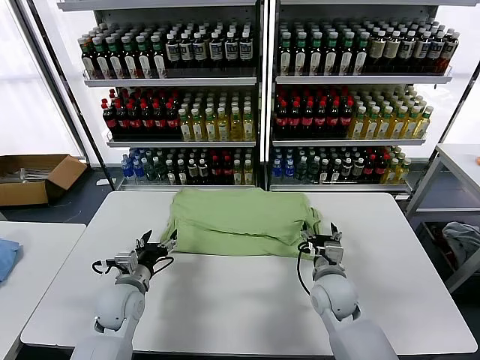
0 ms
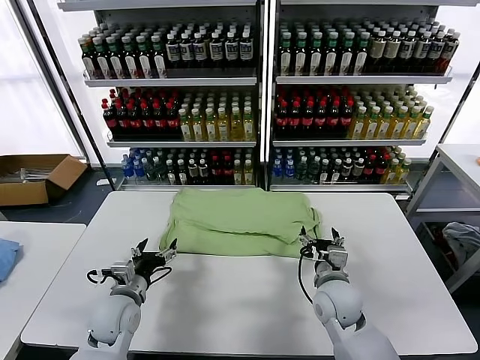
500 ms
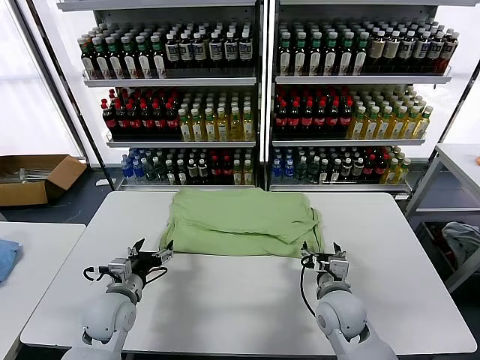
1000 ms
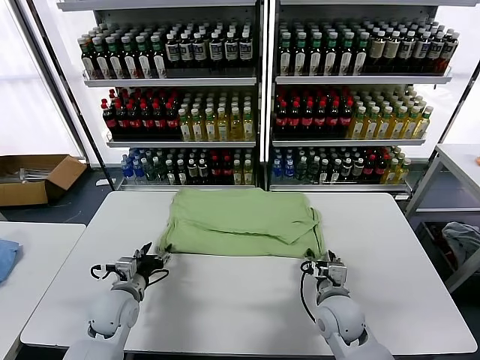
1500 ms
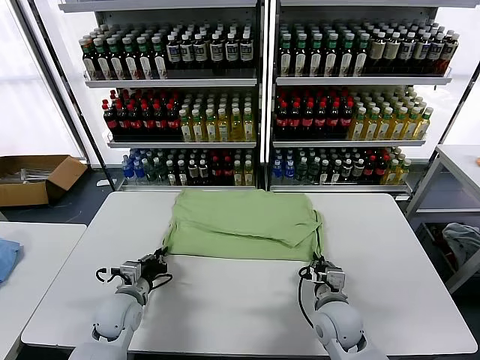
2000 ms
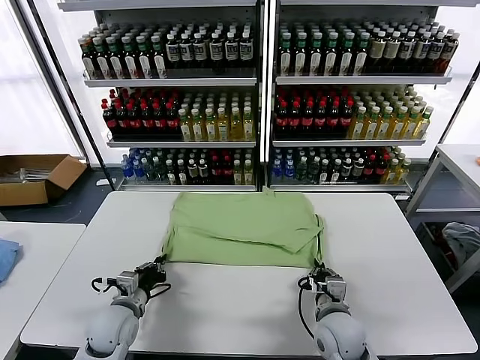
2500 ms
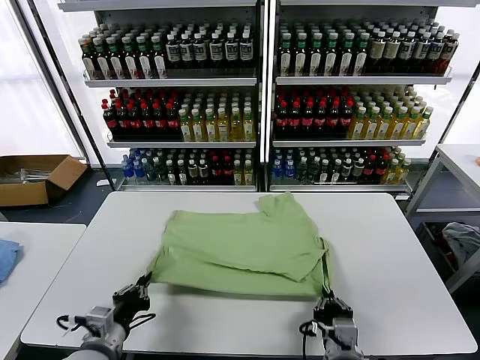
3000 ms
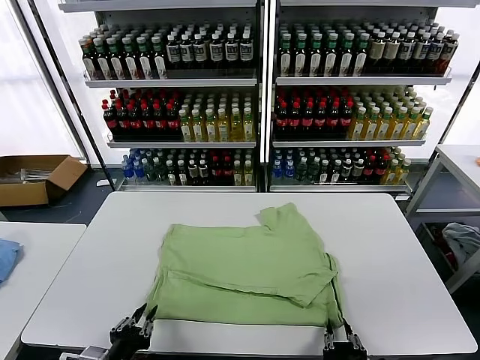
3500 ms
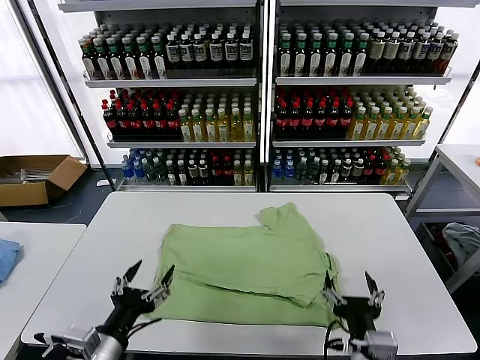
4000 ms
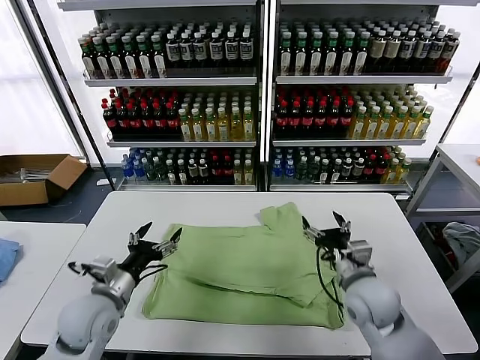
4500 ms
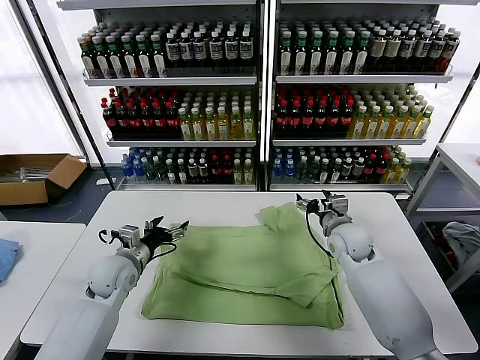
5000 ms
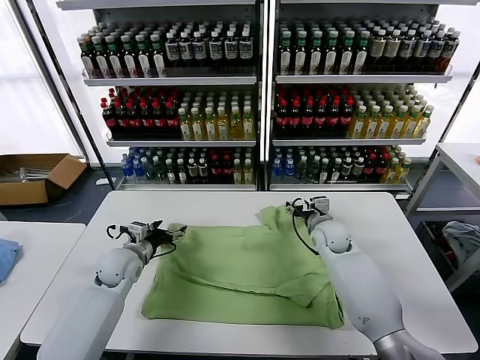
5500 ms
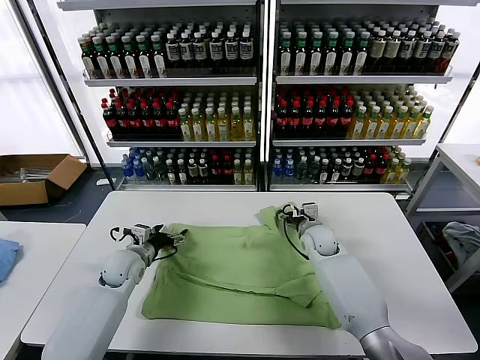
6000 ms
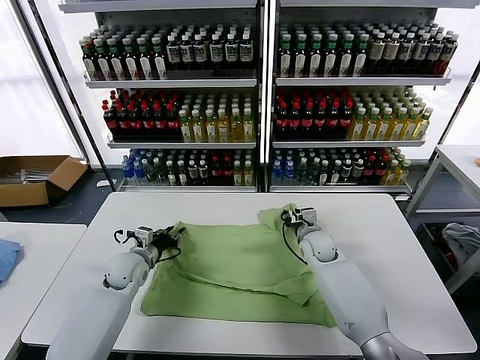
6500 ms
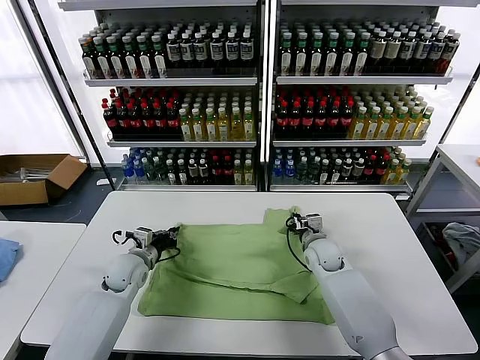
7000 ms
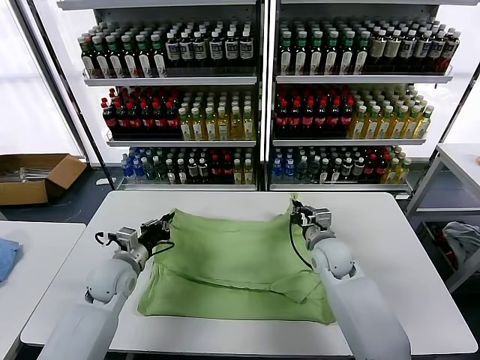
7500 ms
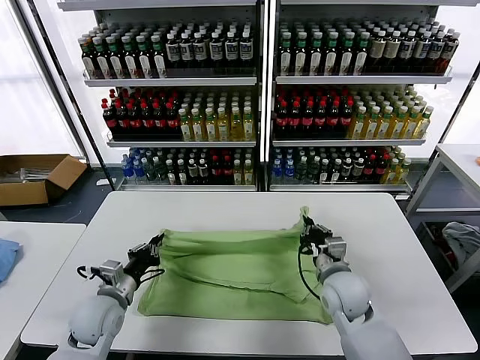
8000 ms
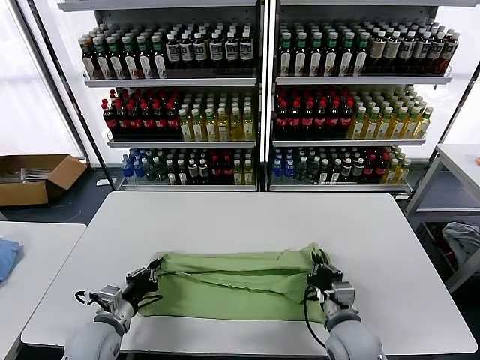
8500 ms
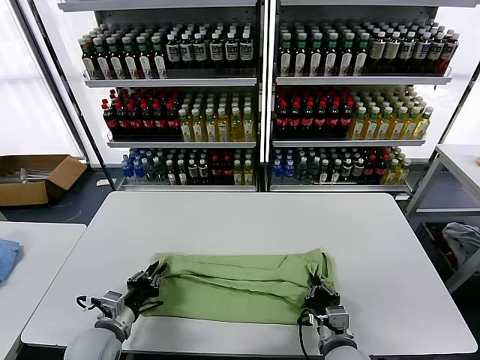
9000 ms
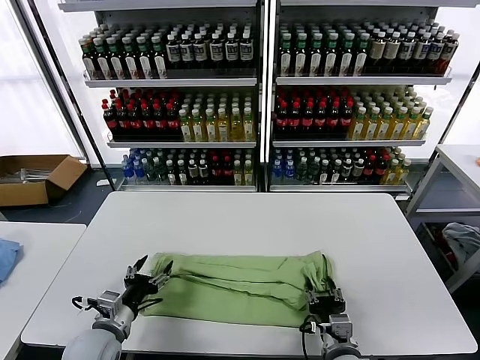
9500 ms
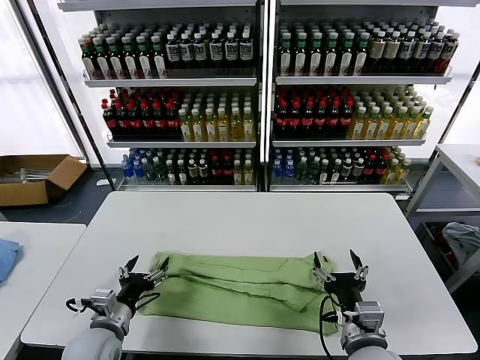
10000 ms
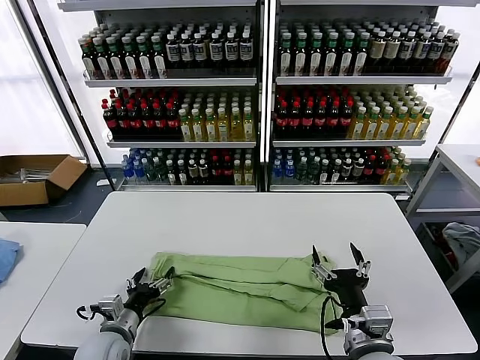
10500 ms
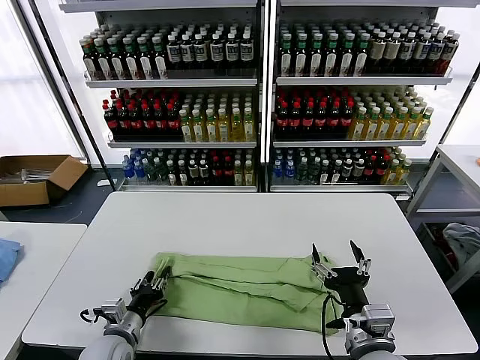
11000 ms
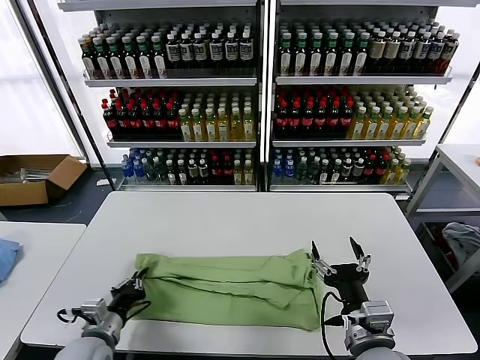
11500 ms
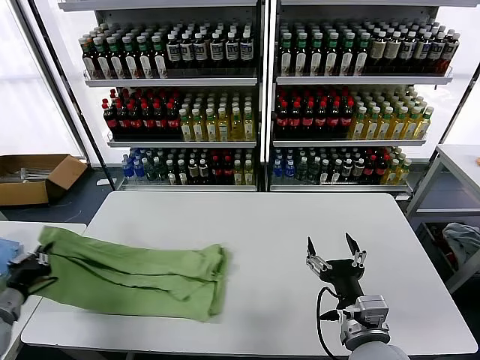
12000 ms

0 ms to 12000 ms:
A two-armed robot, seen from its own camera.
Task of the whole recording: fold and organize the clothes.
Step, 0 ms to 3500 ms: Drag the clothes downward with both gripper.
Step, 4000 ms to 6500 ms: use both grippers simultaneously to clamp the upper edge of the clothing fabric.
Step, 7000 ms to 9500 ms: use both grippers to drag the upper edge of the fabric backward and fold it over the lower edge.
Step, 10000 ms to 11000 ms: use the left gripper to clamp the left edge of the fabric.
0 ms to 2000 ms: The left gripper closes its fingers, while the right gripper closes up.
2000 ms to 4000 ms: The two grippers go approximately 20 cm backward and upward. The left gripper opens its fingers; the right gripper opens its fingers.
4000 ms to 6000 ms: Both grippers move forward, approximately 35 cm.
6000 ms to 8000 ms: Both grippers move backward, approximately 15 cm. The left gripper closes up. The right gripper closes up.
8000 ms to 10000 ms: The left gripper is displaced backward by roughly 5 cm, and opens its fingers, while the right gripper moves backward, some 15 cm, and opens its fingers.
10000 ms to 12000 ms: The left gripper travels to the left by roughly 15 cm, and closes.

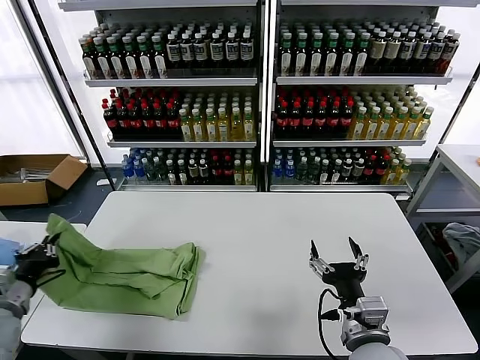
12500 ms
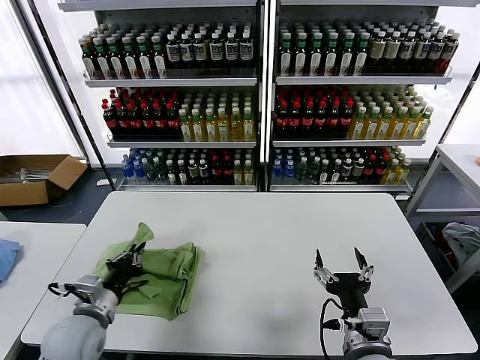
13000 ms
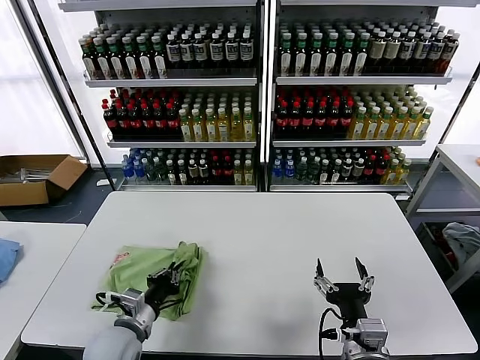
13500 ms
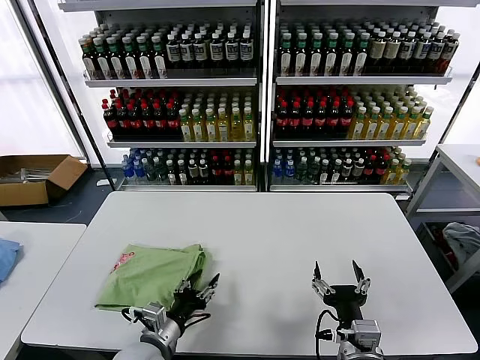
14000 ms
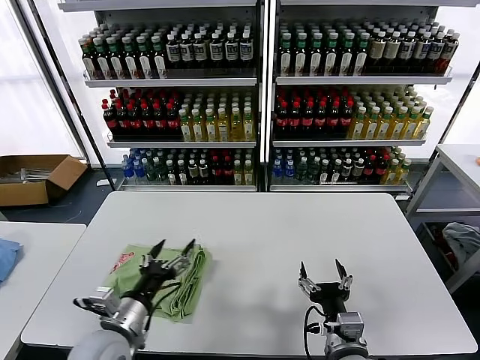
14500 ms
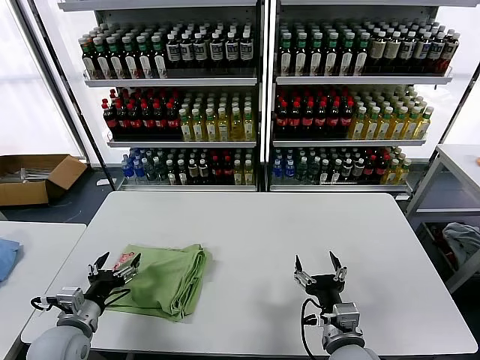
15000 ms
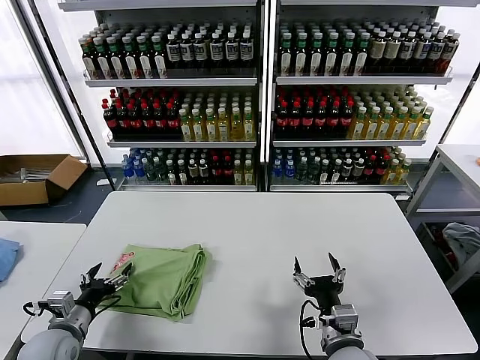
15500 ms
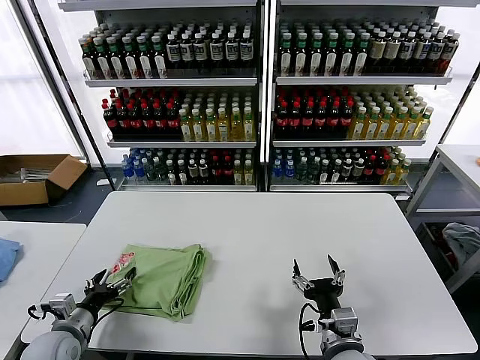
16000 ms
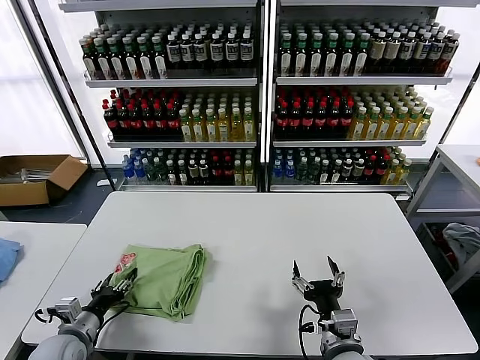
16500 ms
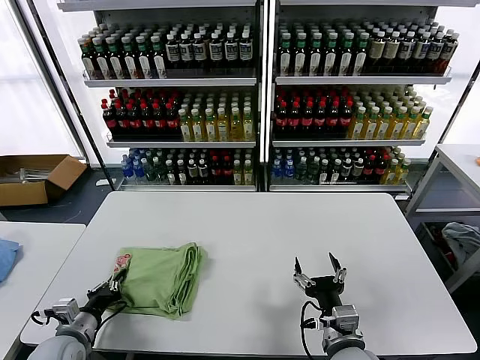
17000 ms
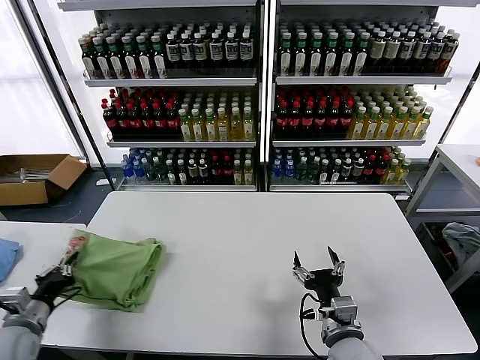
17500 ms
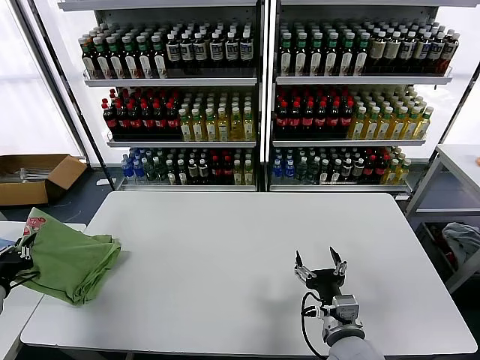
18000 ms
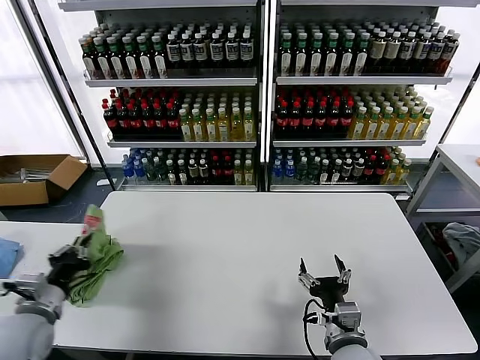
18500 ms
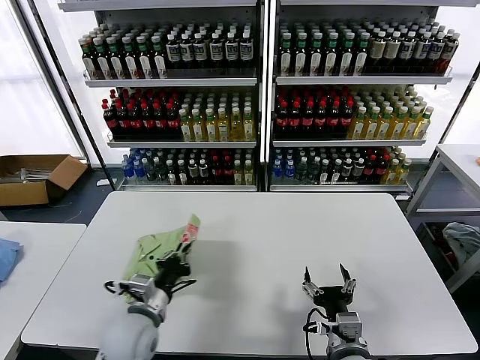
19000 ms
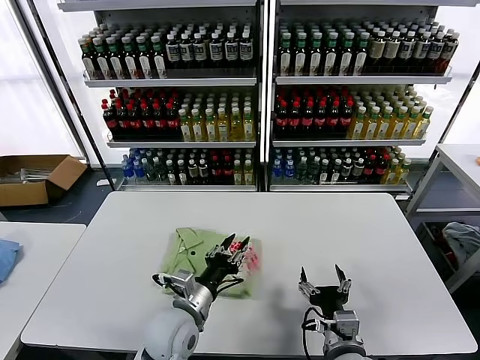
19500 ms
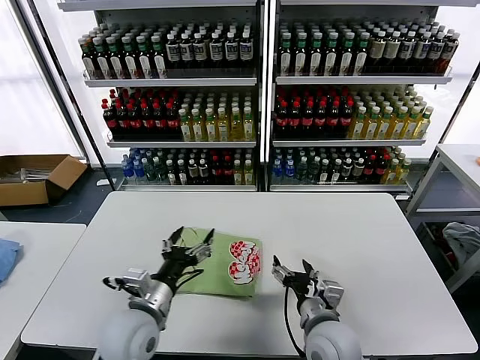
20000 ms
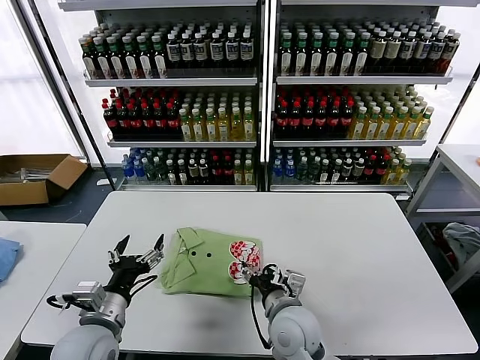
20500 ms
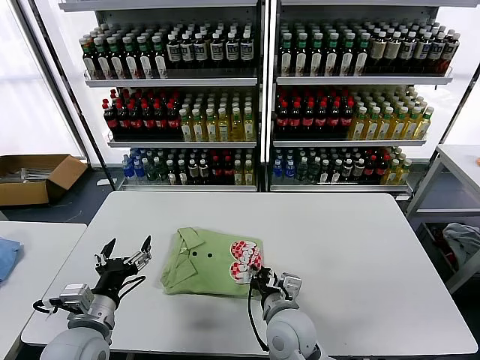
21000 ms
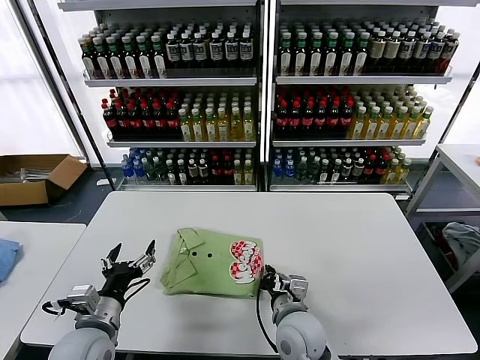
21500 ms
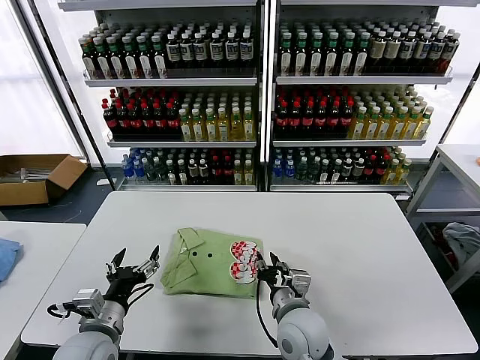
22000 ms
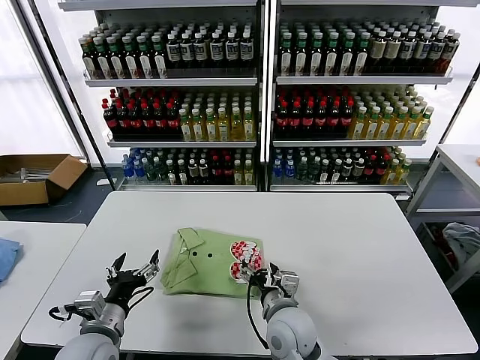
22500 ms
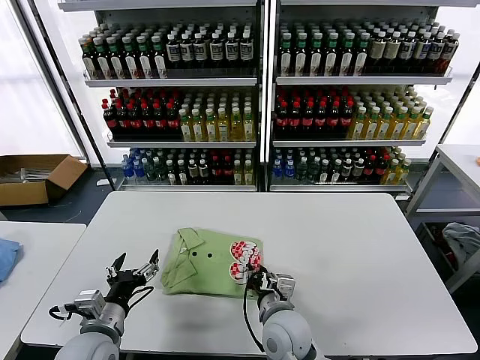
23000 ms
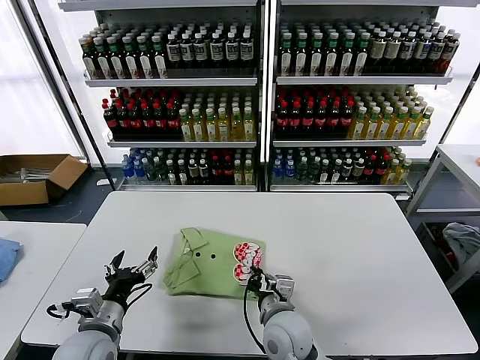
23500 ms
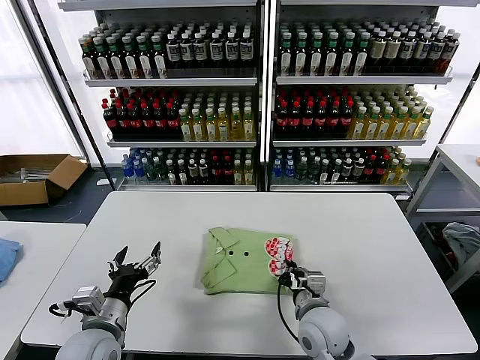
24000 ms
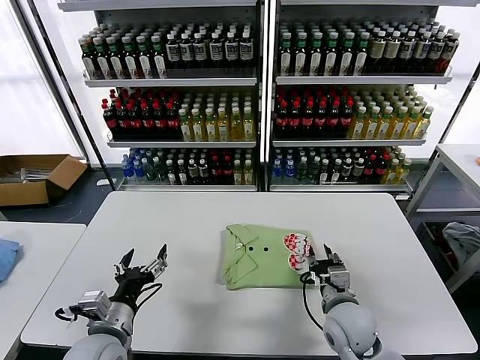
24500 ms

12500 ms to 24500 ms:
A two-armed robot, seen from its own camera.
Task of the whole recording: fold and organize the clothes.
Step, 12500 ms to 14000 ms: use the left gripper to drag the left edge of the fabric to the left and folds it over the right edge.
Step, 14500 ms to 19500 ms: Flip the folded clothes over with left gripper.
12500 ms to 14500 ms: The left gripper heads to the right, covering approximately 25 cm, and opens up. Meanwhile the right gripper goes about 5 cm downward.
14500 ms to 16500 ms: The left gripper shifts about 20 cm to the left and downward.
16500 ms to 18500 ms: The left gripper is displaced upward by about 10 cm, goes to the left and returns, roughly 15 cm each way, and closes its fingers.
18500 ms to 20500 ms: The right gripper shifts roughly 10 cm to the left and forward, while the left gripper shifts roughly 15 cm to the right, and opens.
20500 ms to 22500 ms: The right gripper closes, then reopens.
22500 ms to 24500 ms: The right gripper is displaced to the right by approximately 10 cm, and closes.

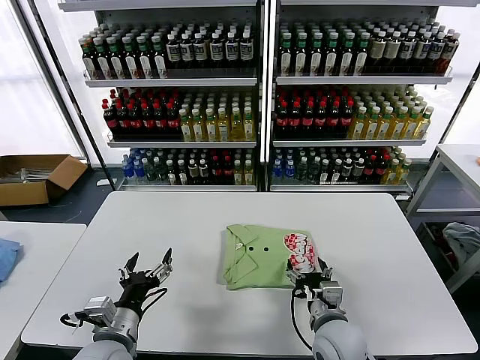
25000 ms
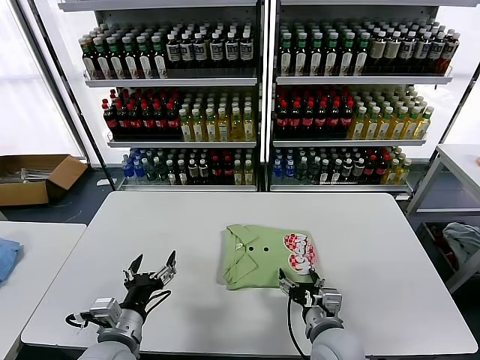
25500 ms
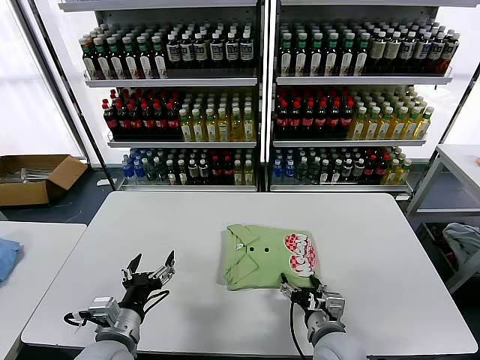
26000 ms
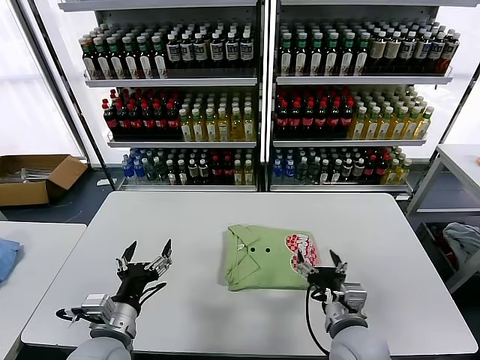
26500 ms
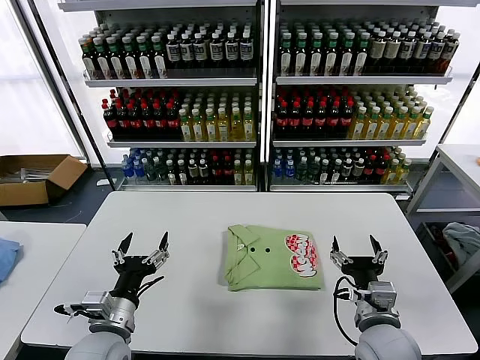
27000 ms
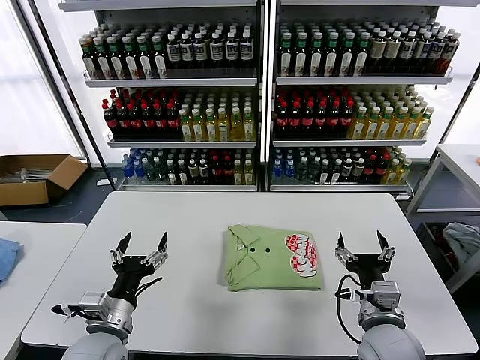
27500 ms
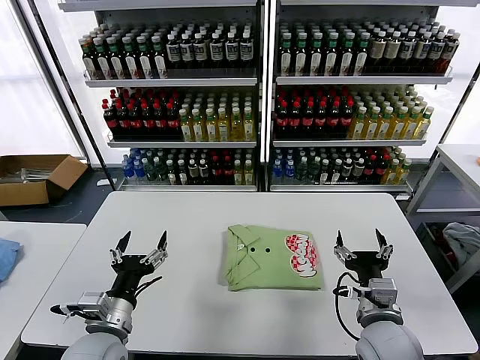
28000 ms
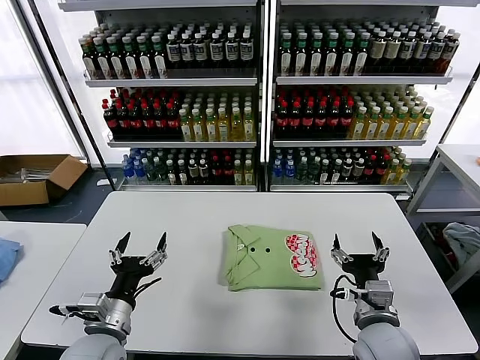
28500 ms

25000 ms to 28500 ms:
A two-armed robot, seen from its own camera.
Task of the whole recording: fold and organize the clothes.
25000 ms to 27000 ms: The right gripper is displaced to the right and upward by approximately 10 cm.
27000 ms to 28500 ms: The grippers make only small movements.
